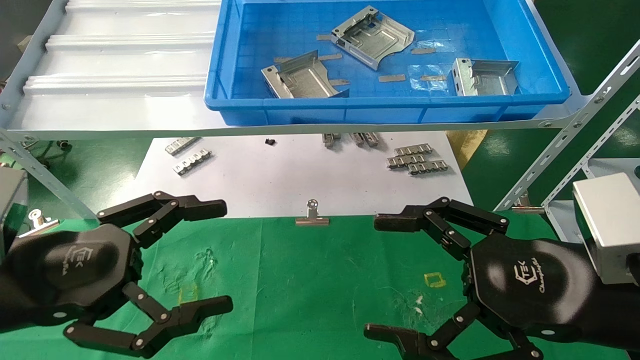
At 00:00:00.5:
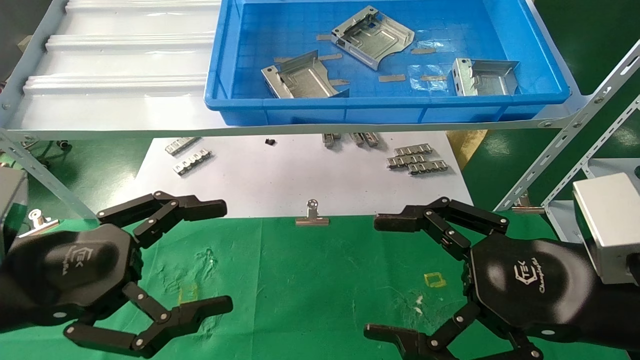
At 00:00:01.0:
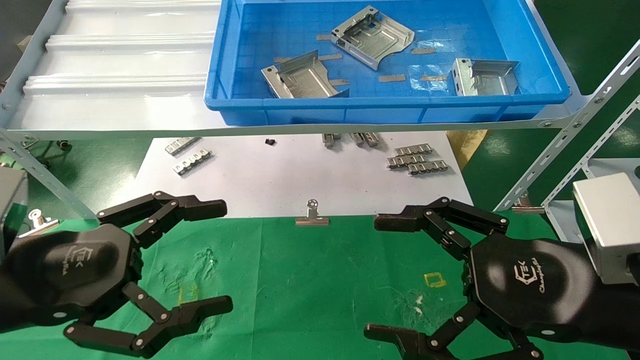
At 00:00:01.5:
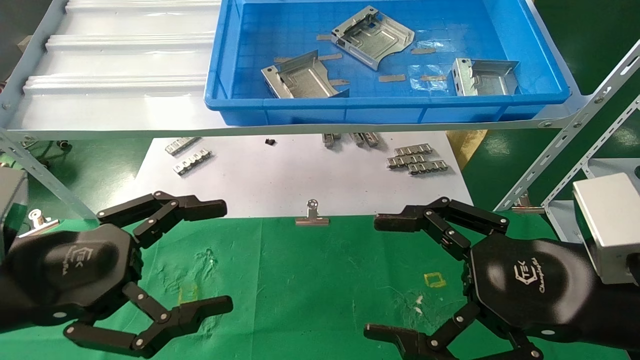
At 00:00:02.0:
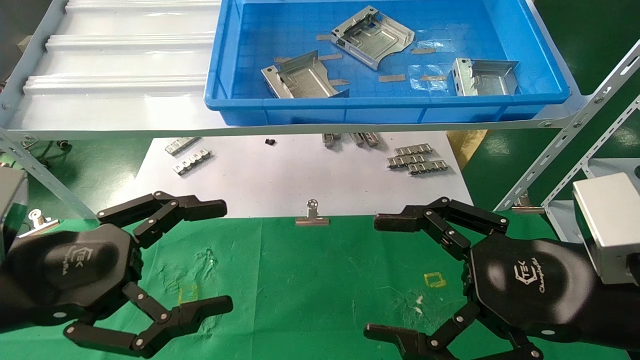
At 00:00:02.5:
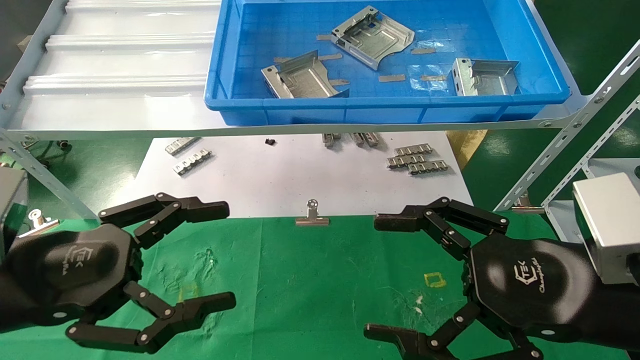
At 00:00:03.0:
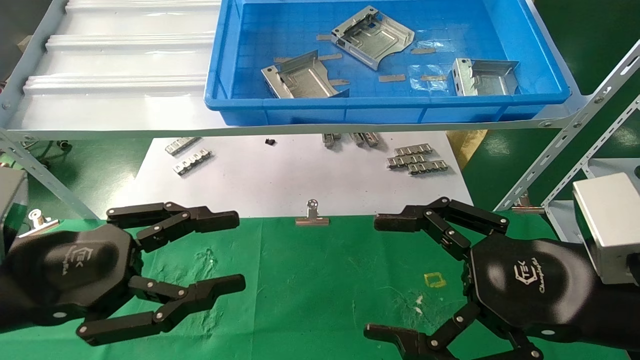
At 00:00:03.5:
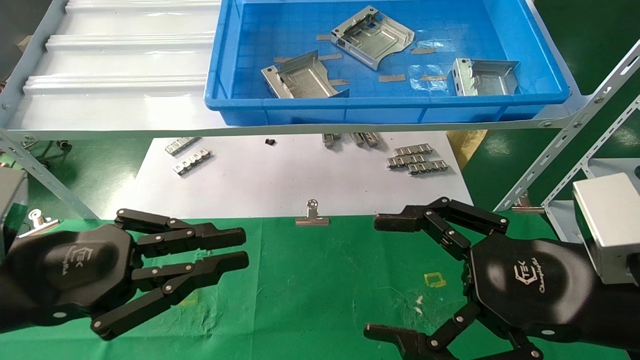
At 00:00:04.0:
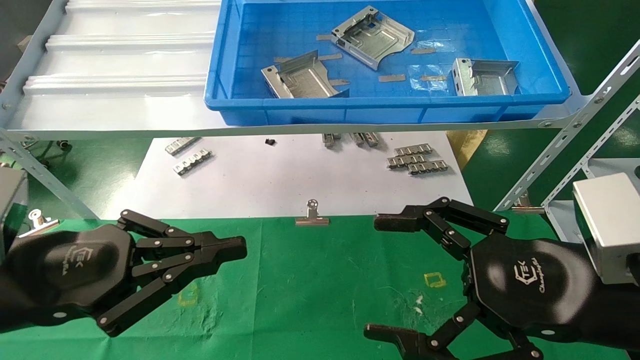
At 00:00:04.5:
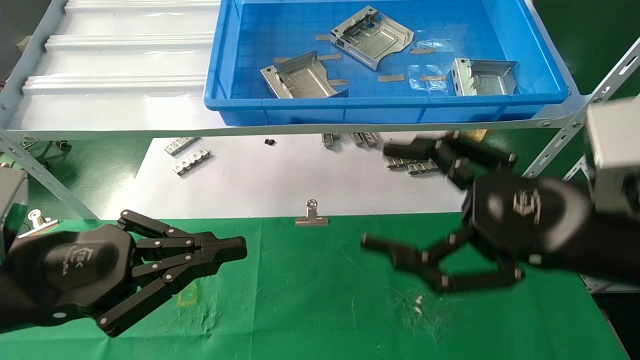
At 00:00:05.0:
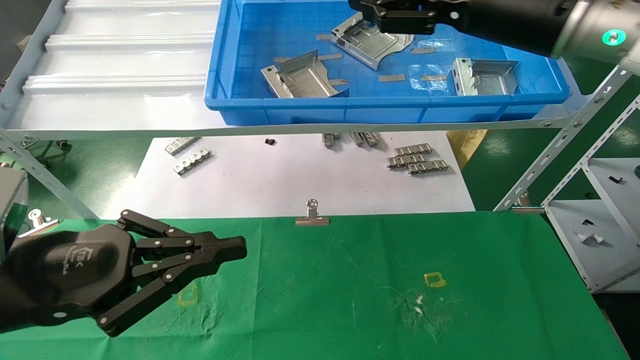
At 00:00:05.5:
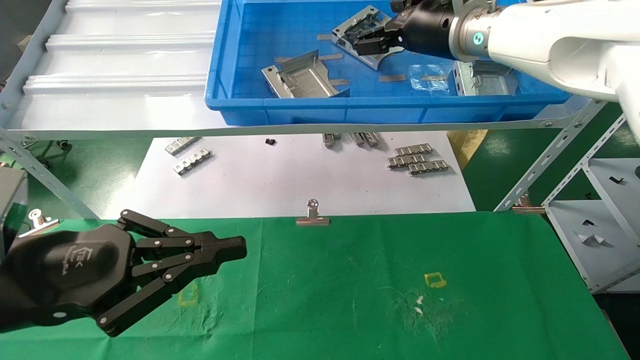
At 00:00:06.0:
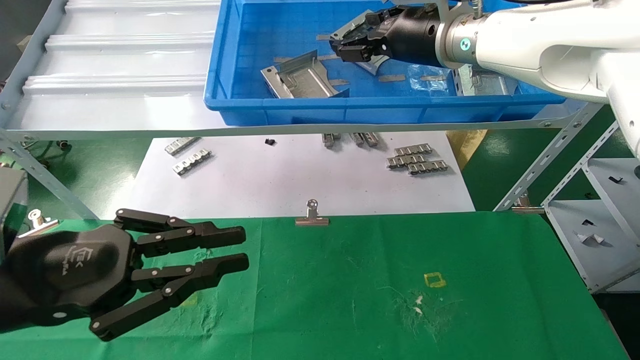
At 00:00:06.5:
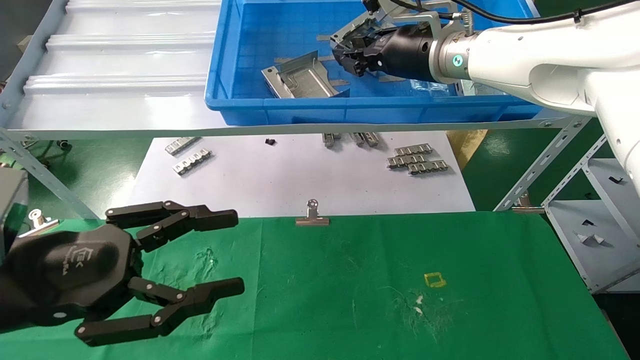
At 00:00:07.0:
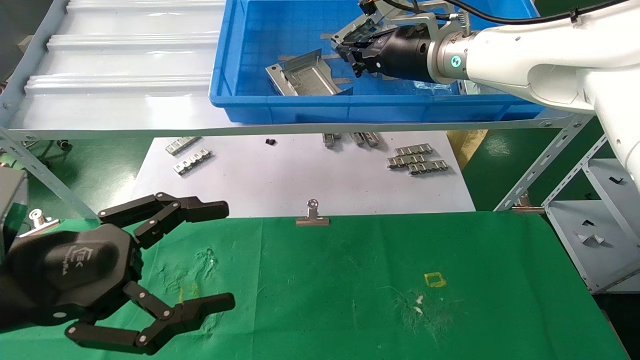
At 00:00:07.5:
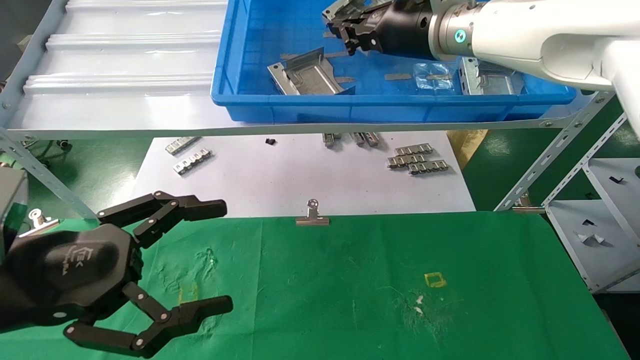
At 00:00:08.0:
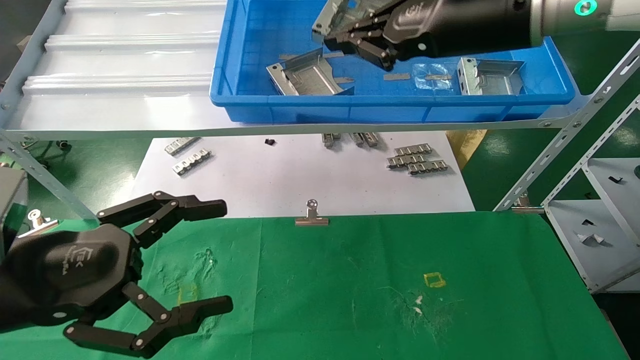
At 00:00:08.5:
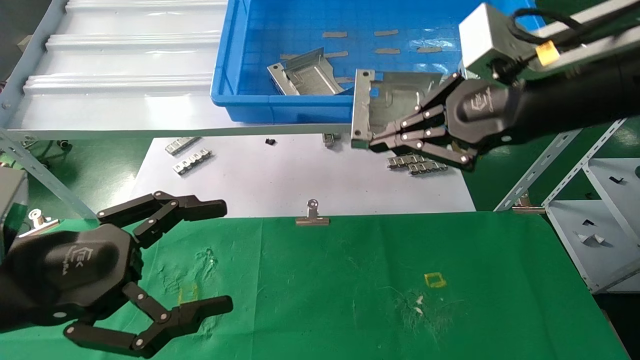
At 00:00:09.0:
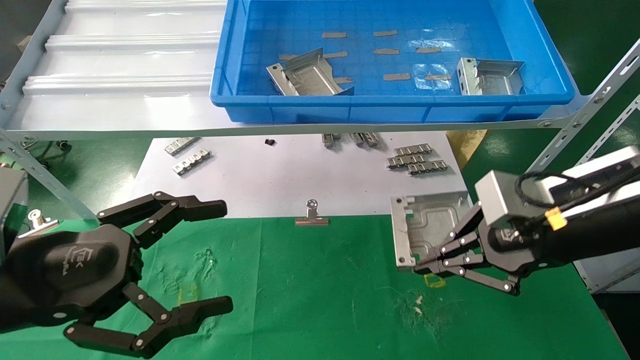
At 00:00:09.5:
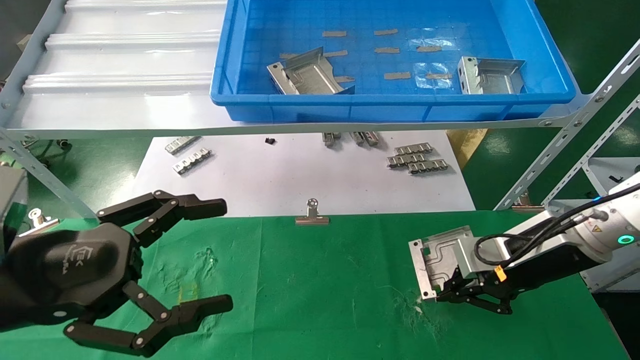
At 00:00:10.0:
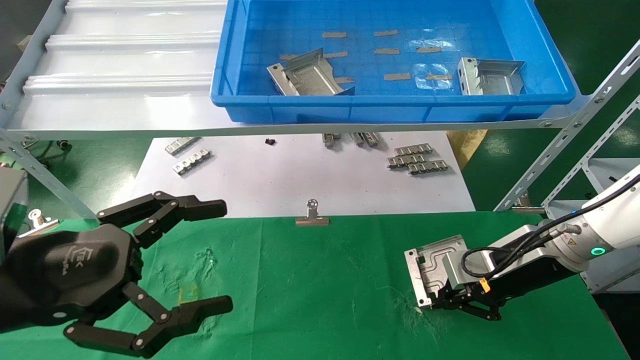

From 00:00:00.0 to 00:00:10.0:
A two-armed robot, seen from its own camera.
Task of the whole recording: use the mechanical arm to pick up the parts and place them on the table.
Step, from 00:00:02.5 to 00:00:08.0: Pick up the hard drive bracket from the feeding area.
From 00:00:00.0 to 00:00:02.0: Both grippers stay put.
From 00:00:02.0 to 00:00:04.0: The left gripper closes its fingers.
From 00:00:04.0 to 00:00:06.0: The right gripper moves forward and upward, some 30 cm.
From 00:00:06.0 to 00:00:08.0: The right gripper travels backward by roughly 10 cm, and closes up. The left gripper opens its fingers.
From 00:00:08.0 to 00:00:10.0: The right gripper shifts about 30 cm downward and to the right.

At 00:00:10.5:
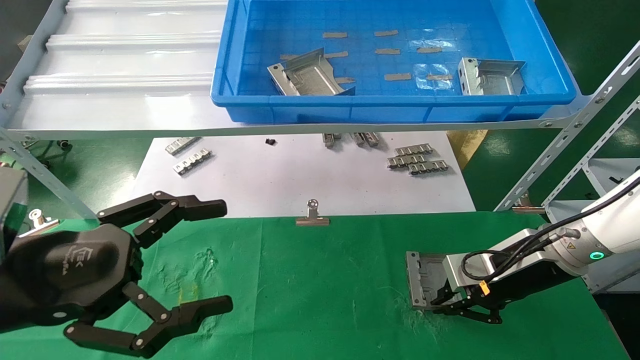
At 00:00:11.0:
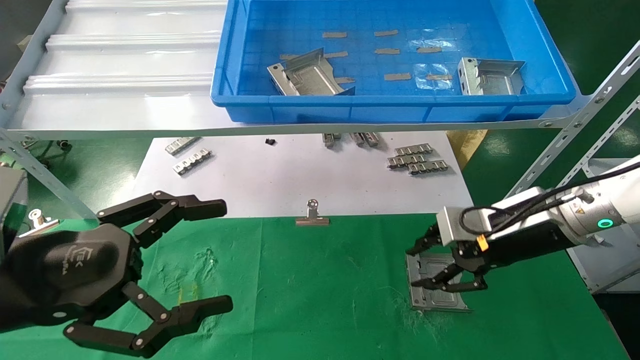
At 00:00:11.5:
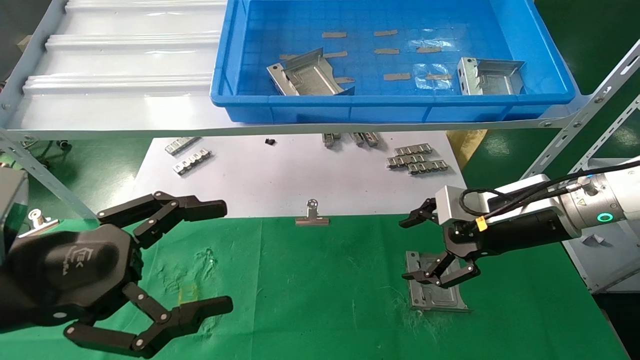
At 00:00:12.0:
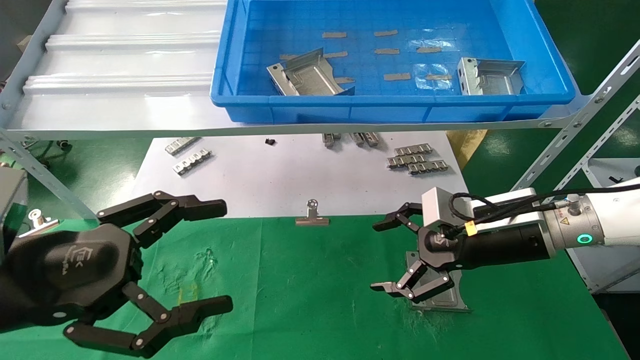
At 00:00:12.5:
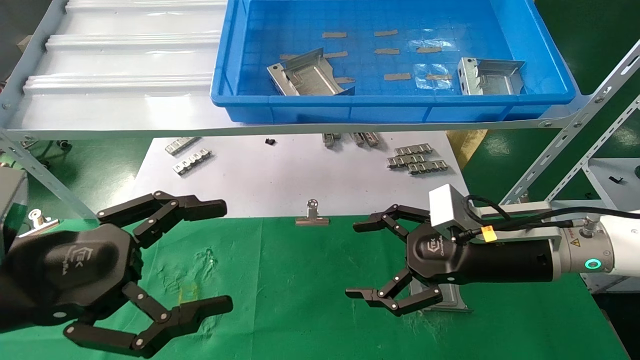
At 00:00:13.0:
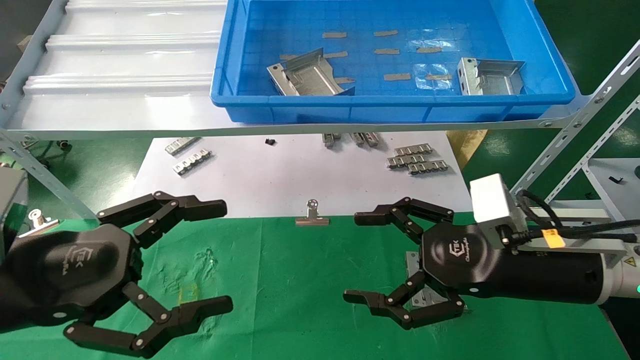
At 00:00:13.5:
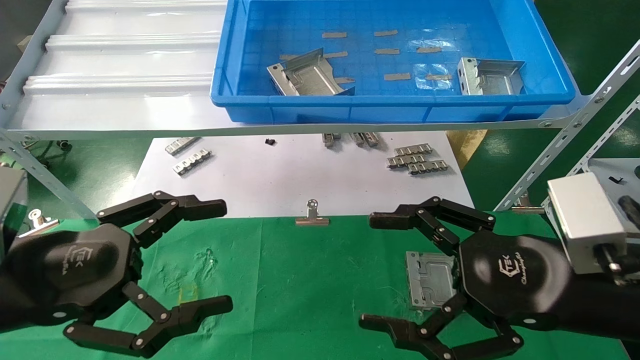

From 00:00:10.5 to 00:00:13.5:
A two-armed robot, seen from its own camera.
Task of the whole recording: use the mechanical arm to pick up the parts and place them on the table.
From 00:00:10.5 to 00:00:12.0: The right gripper ends up some 5 cm from where it was, and opens up.
From 00:00:12.0 to 00:00:13.5: The right gripper is displaced backward by about 15 cm.
